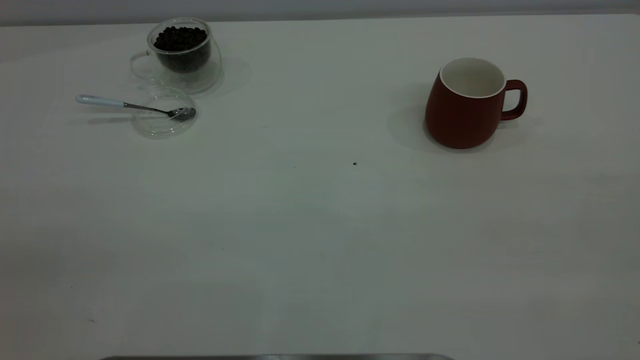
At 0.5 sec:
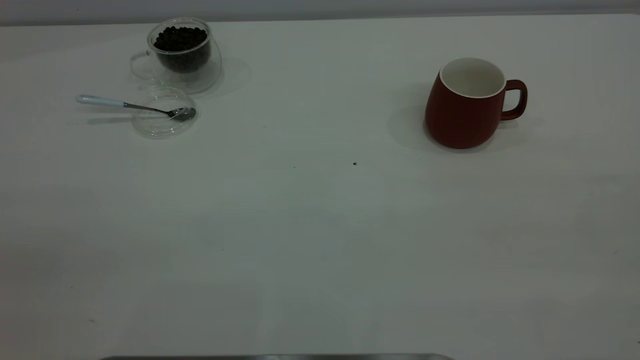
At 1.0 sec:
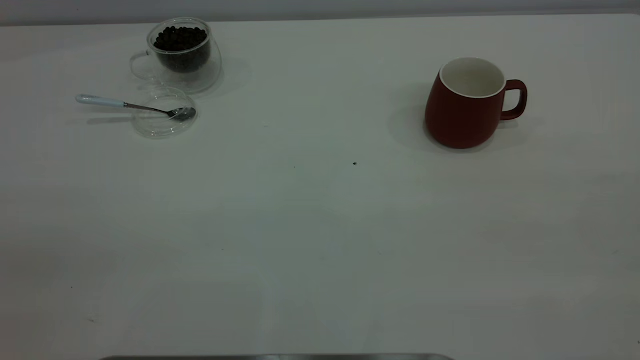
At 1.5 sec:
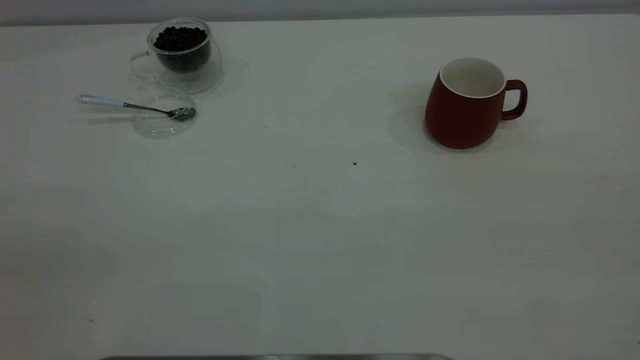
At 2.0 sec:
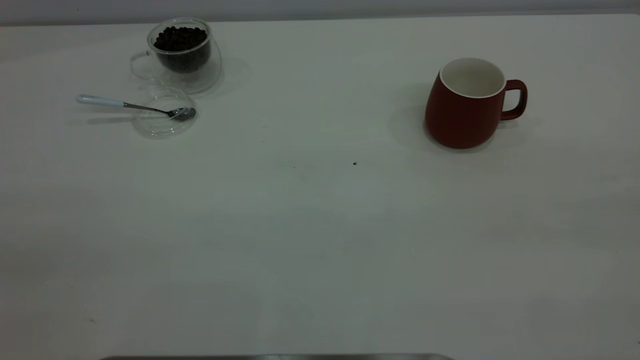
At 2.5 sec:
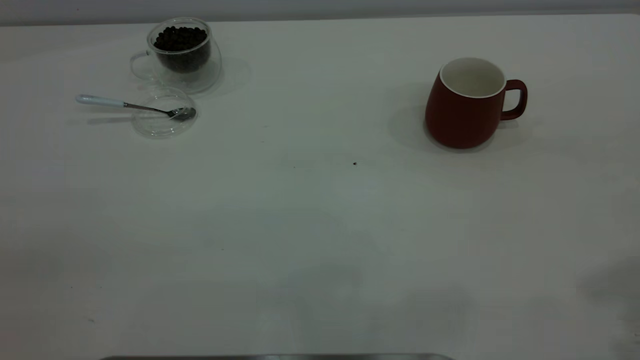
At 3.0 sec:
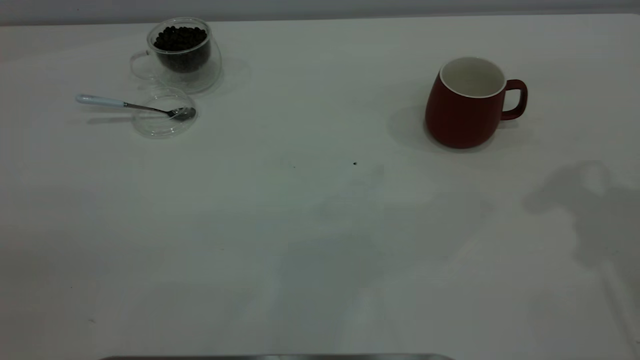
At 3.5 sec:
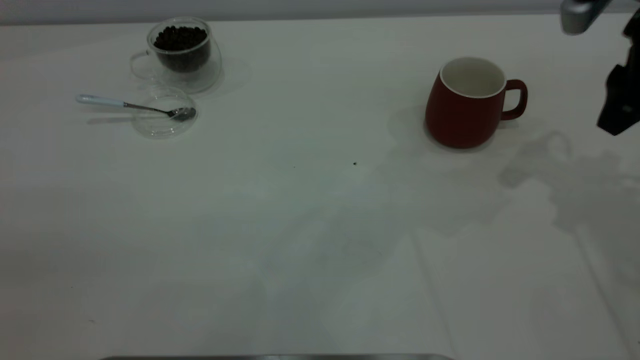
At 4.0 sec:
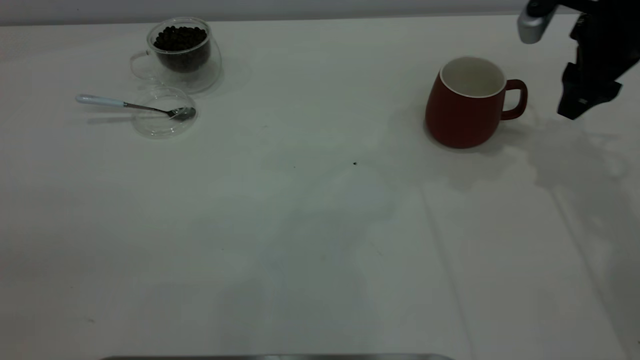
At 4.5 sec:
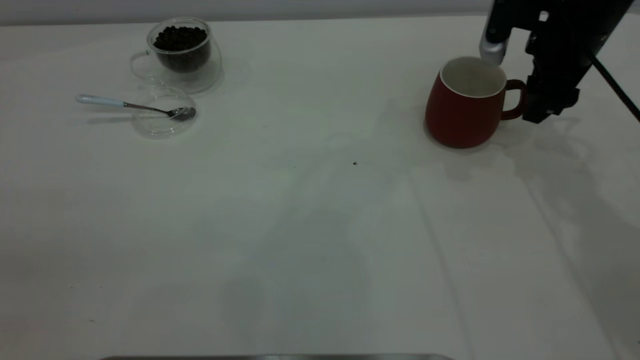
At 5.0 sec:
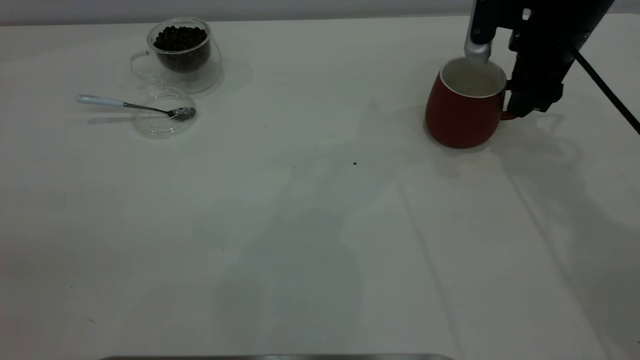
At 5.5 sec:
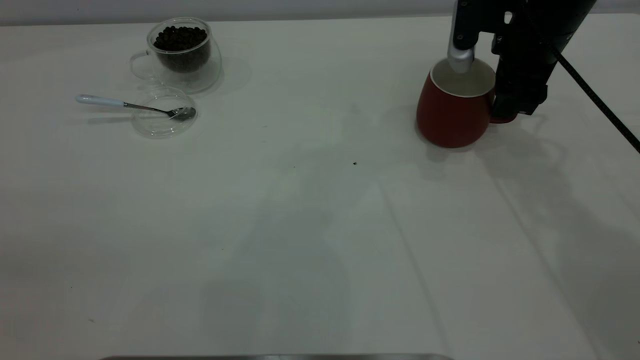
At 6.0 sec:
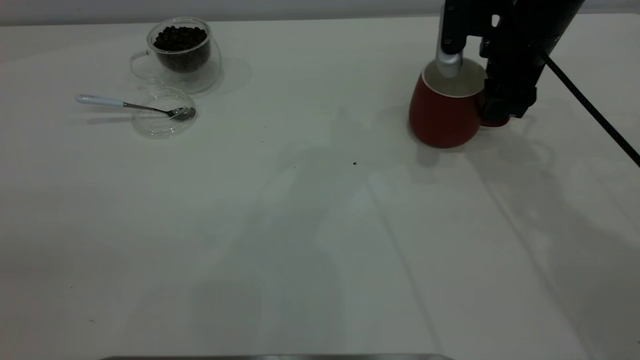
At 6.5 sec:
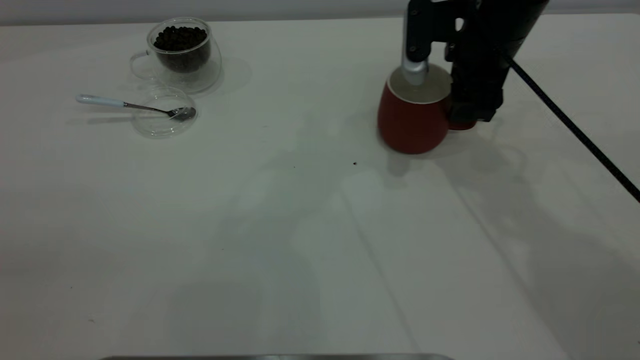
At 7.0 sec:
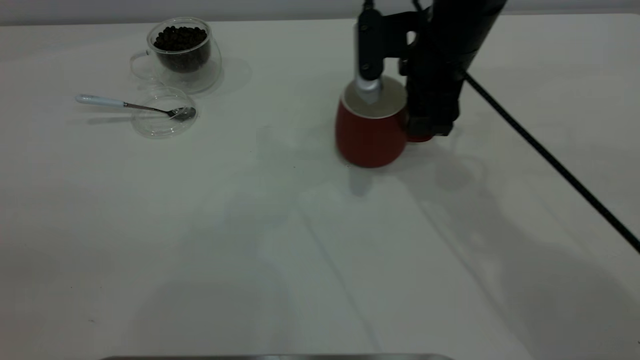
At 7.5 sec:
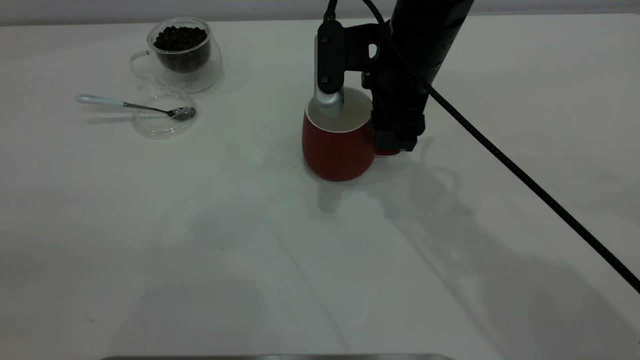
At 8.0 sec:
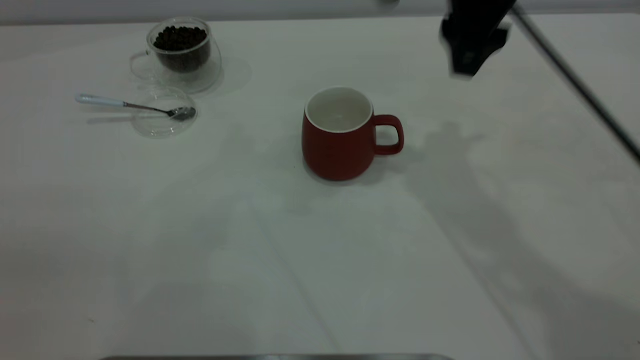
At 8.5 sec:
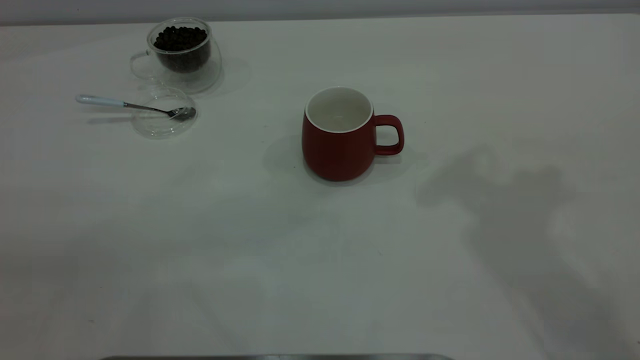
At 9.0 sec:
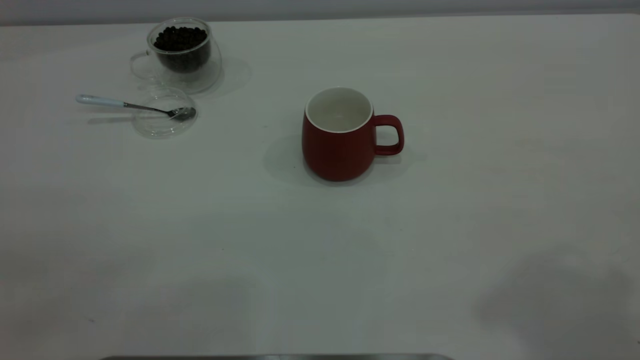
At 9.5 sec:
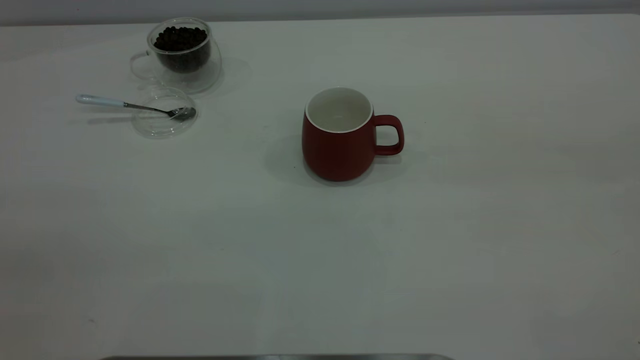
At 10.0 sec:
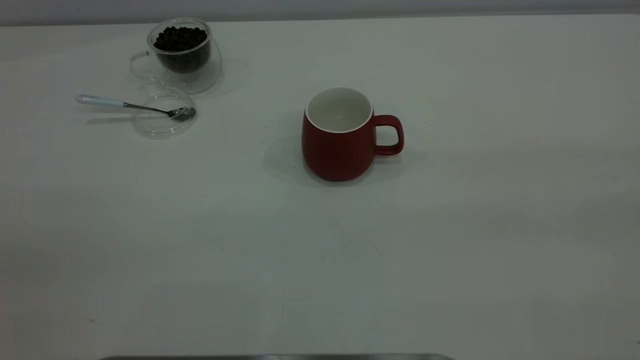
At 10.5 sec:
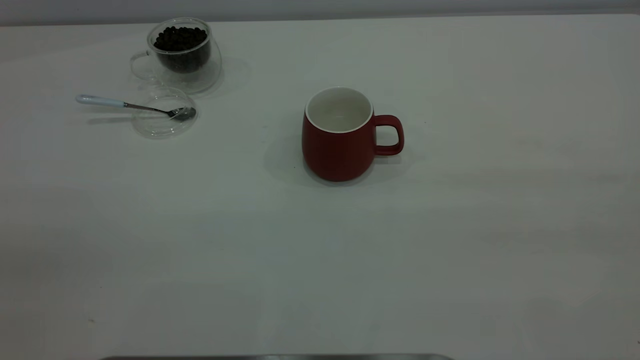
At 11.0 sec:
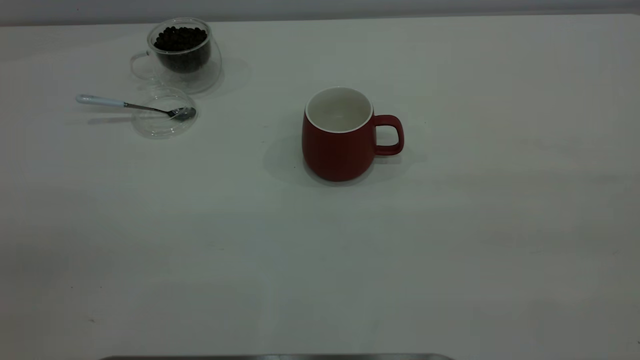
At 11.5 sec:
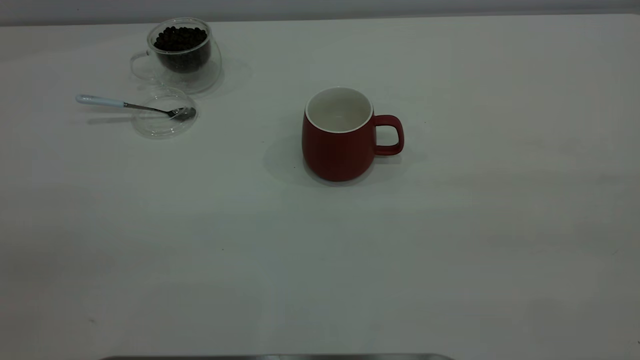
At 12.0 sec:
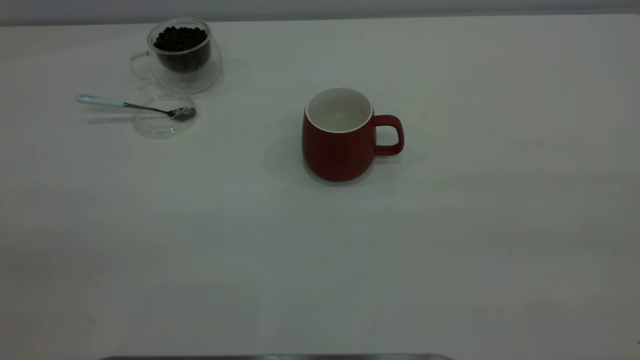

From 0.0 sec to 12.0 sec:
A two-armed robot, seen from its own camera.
Task of the whole recording: the right gripper place the red cup in the center of the table, the left gripper take the blue spoon from the cup lid and scoop out the coffee beans from the coffee cup and put them into the red cup, the left gripper put the spoon back into the cup lid.
Step, from 0.0 sec to 7.5 sec: Move the cup to the center of view.
From 2.0 sec to 4.0 sec: The right gripper shifts roughly 40 cm forward and downward.
From 4.0 sec to 6.0 sec: The right gripper moves to the left, roughly 10 cm.
From 6.0 sec to 8.0 sec: The right gripper travels upward, to the left and backward by about 15 cm.
From 8.0 sec to 10.0 sec: The right gripper heads backward and to the right, covering some 40 cm, and closes.

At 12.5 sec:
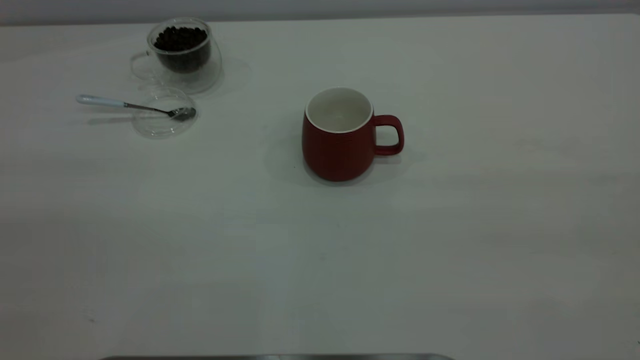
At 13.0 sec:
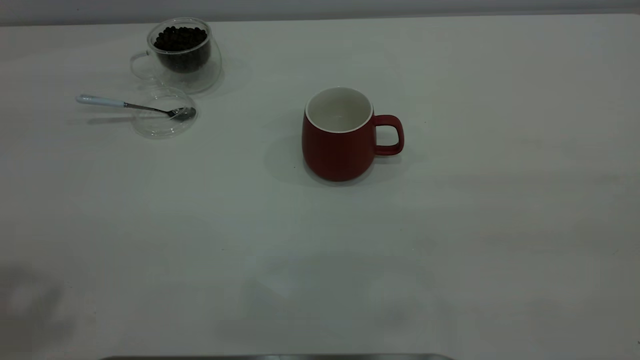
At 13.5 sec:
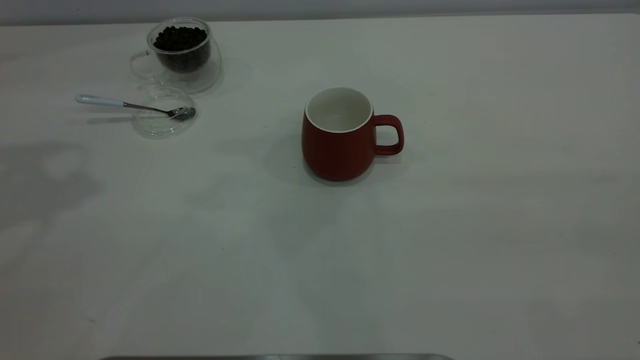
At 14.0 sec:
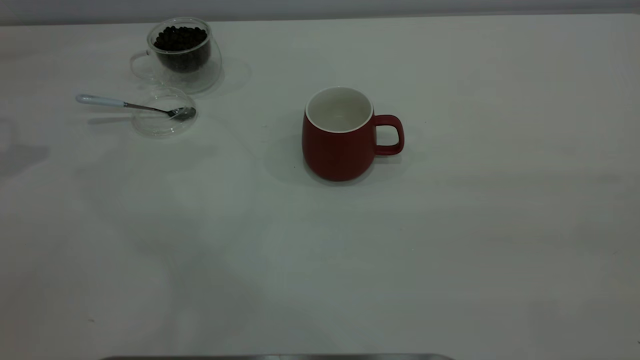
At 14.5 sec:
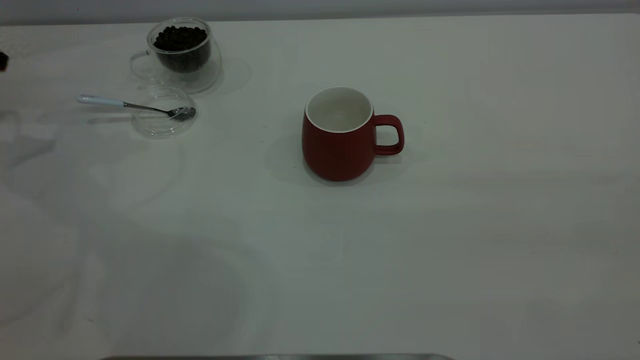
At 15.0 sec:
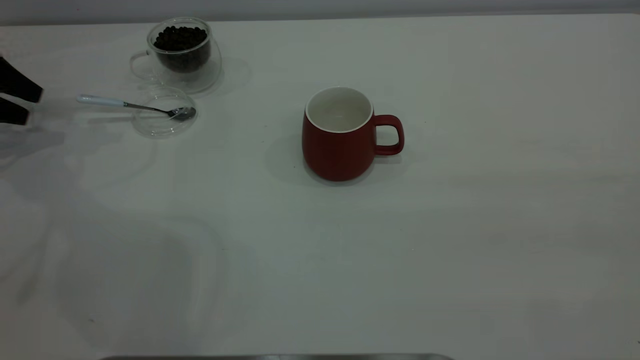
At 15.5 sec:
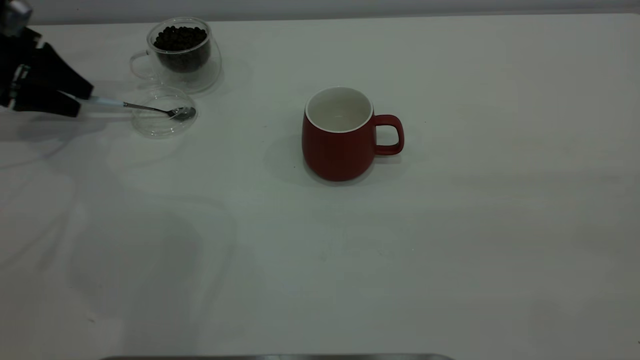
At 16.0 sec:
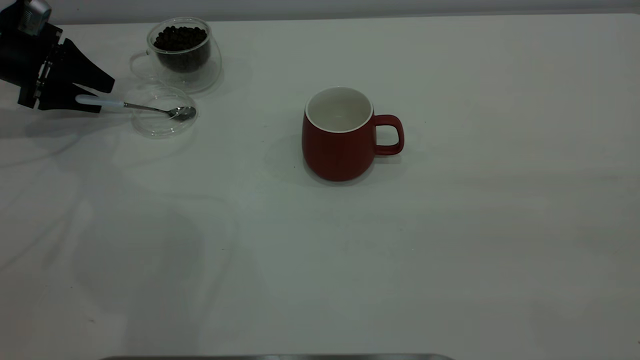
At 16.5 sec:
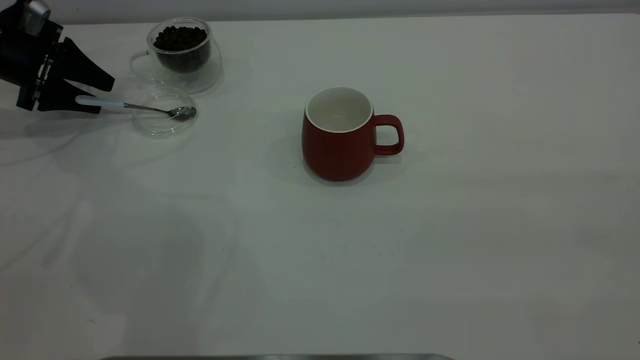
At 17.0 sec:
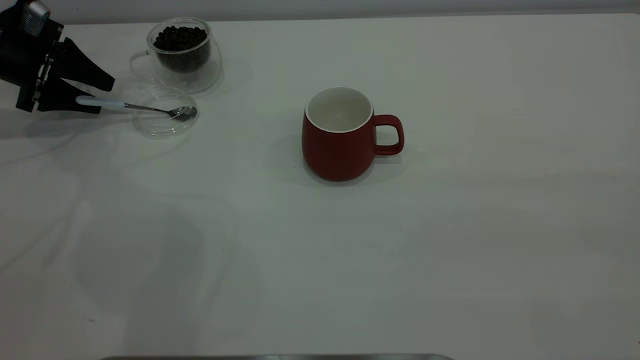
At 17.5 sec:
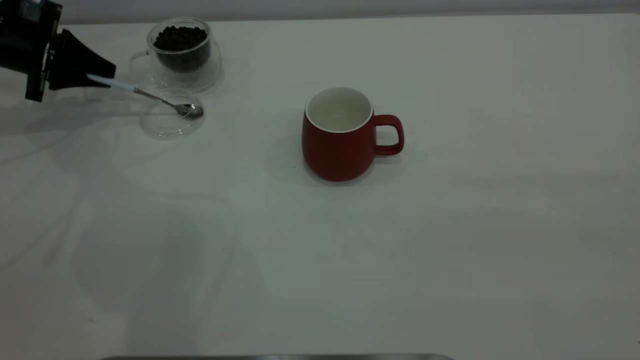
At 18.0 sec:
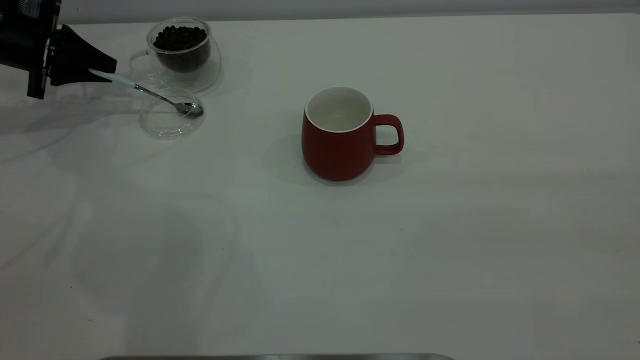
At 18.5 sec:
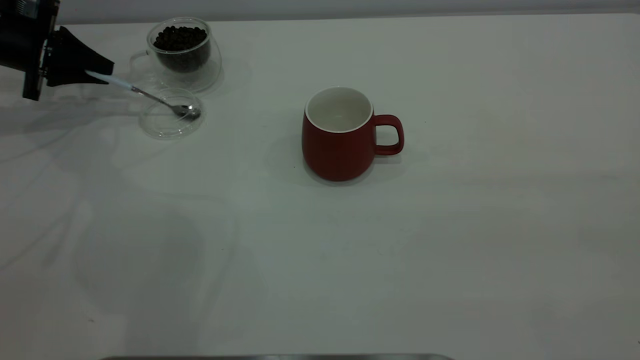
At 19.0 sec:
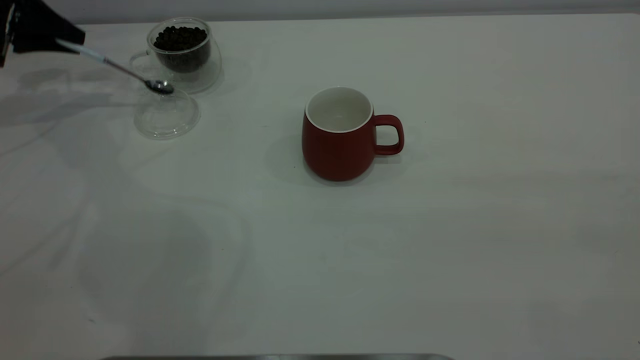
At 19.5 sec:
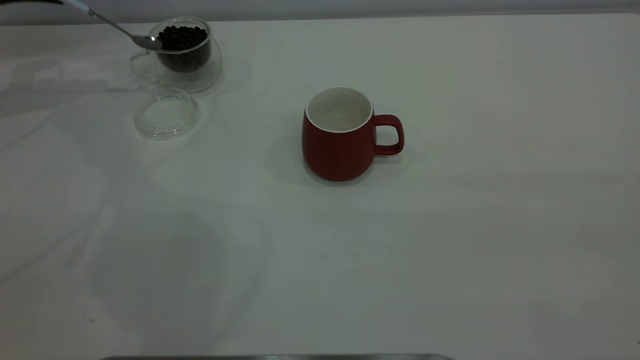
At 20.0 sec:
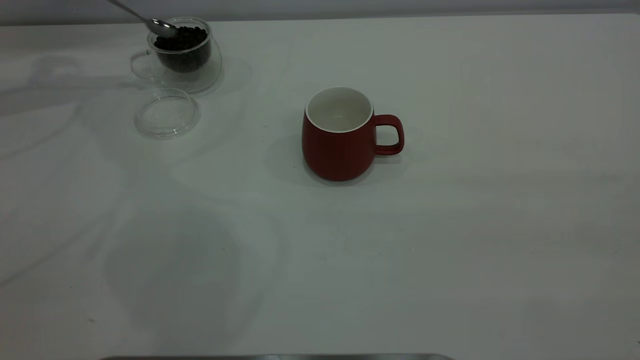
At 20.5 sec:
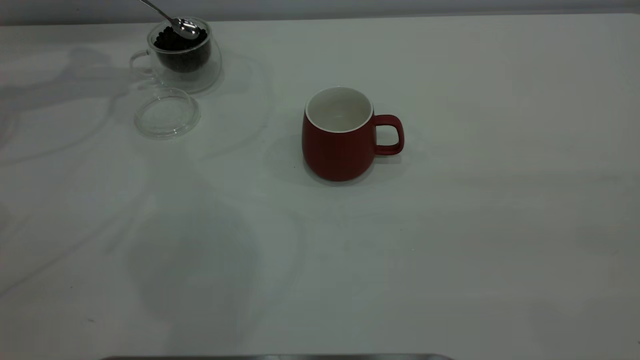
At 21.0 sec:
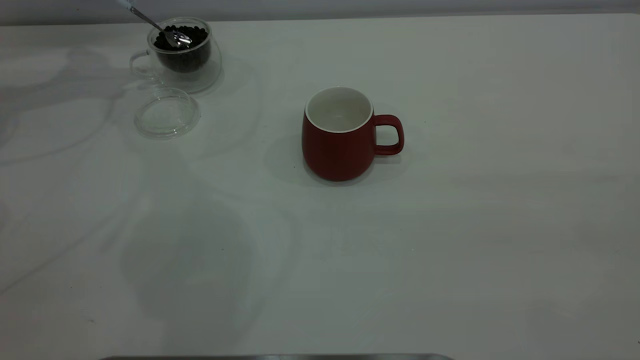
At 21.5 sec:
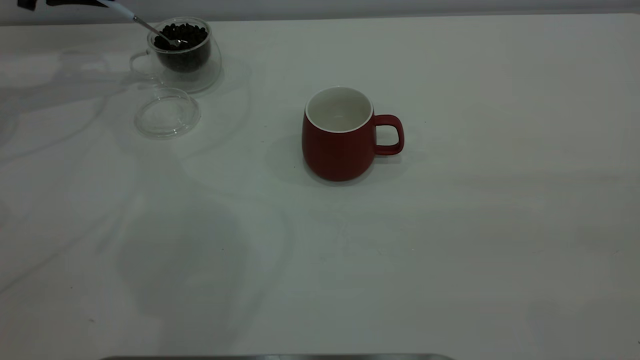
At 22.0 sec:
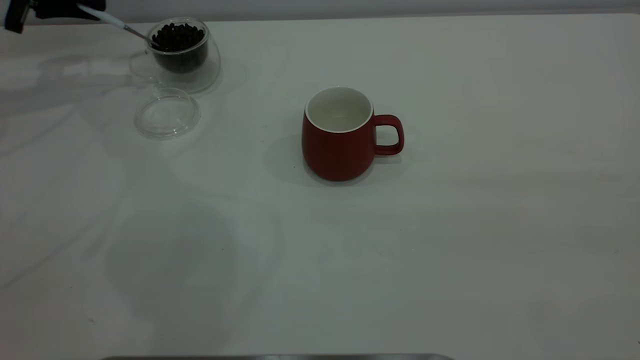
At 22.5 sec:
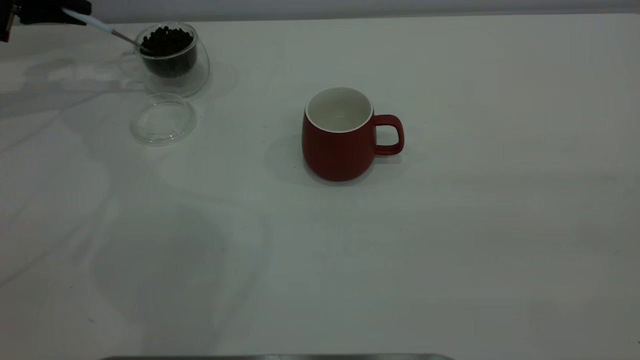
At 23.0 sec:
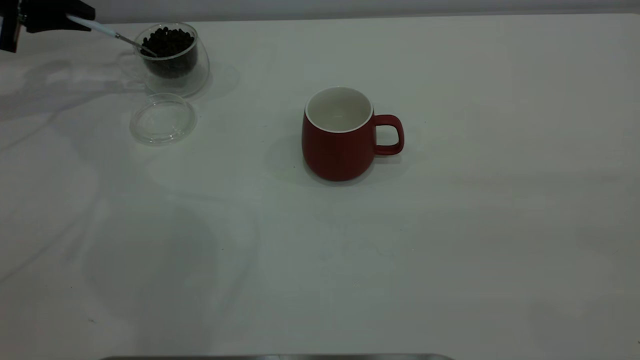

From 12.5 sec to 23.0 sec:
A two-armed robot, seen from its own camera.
Task of the whole recording: the right gripper place the red cup in the center of the table, the left gripper take the blue spoon from the cup lid and scoop out the coffee beans from the coffee cup and put them into the red cup, the left gripper put the spoon back into the cup lid.
Step, from 12.5 sec to 18.5 sec: Pick up the spoon.
From 14.5 sec to 16.5 sec: The left gripper shifts approximately 15 cm downward, forward and to the right.
From 16.5 sec to 19.0 sec: The left gripper is displaced upward by roughly 5 cm, and closes.
From 19.0 sec to 21.0 sec: The left gripper moves roughly 5 cm.
From 21.0 sec to 23.0 sec: The left gripper changes place by about 5 cm.
